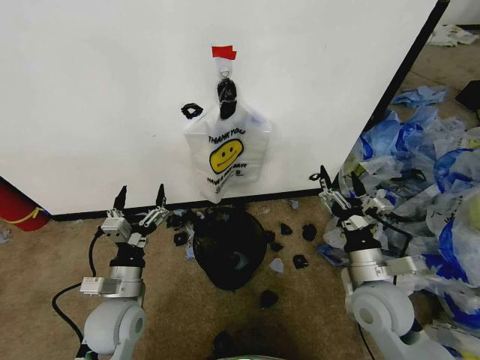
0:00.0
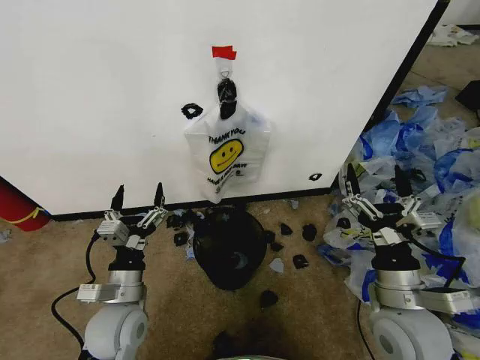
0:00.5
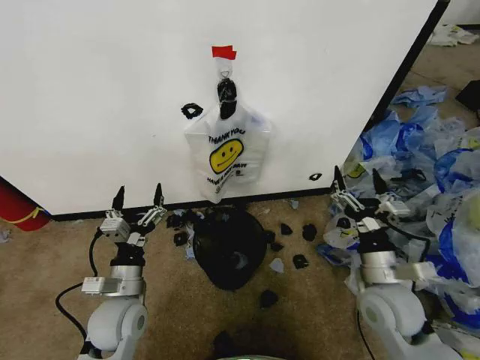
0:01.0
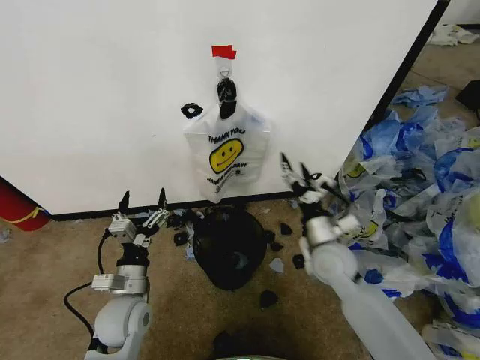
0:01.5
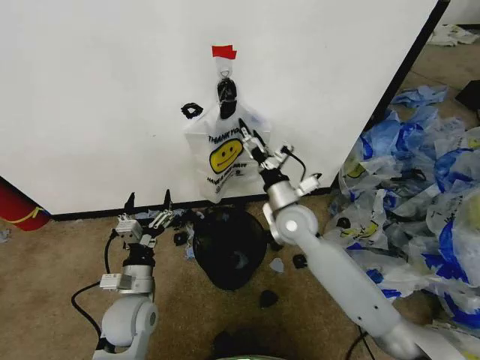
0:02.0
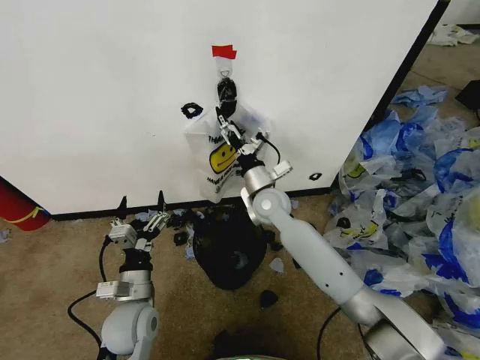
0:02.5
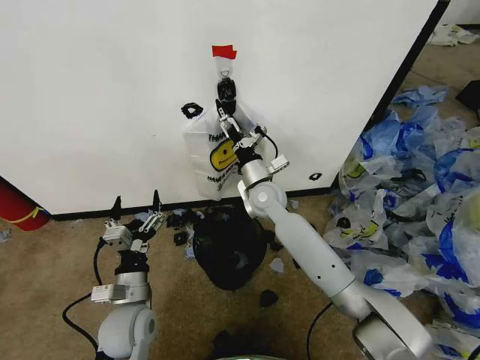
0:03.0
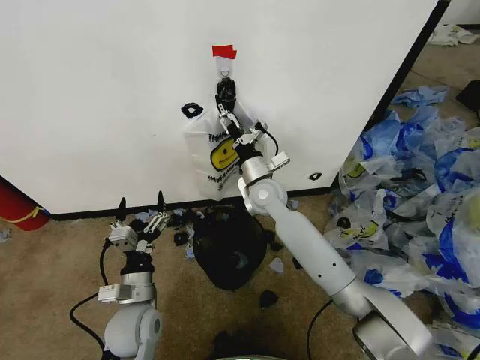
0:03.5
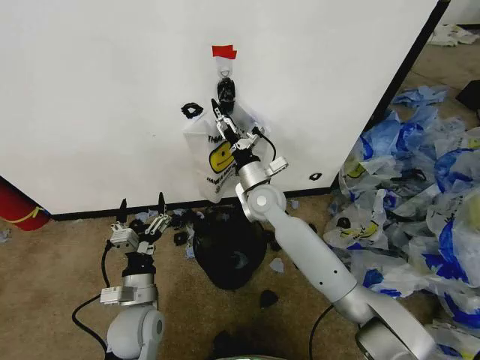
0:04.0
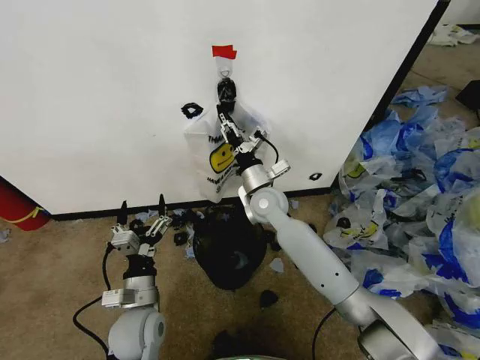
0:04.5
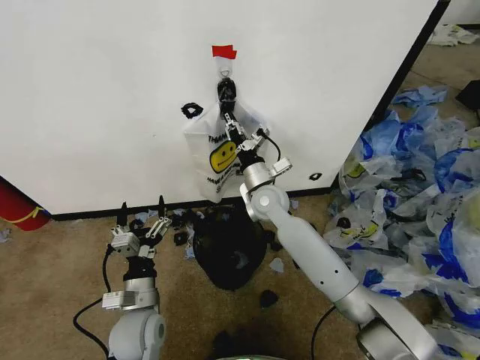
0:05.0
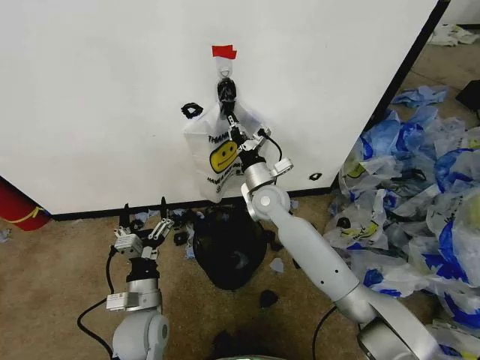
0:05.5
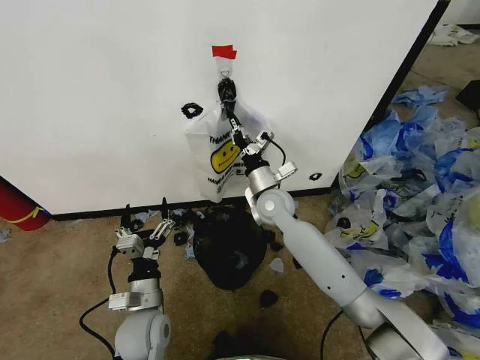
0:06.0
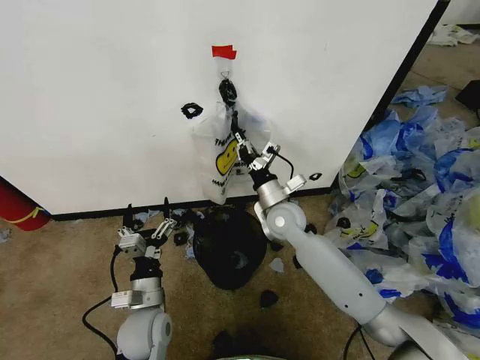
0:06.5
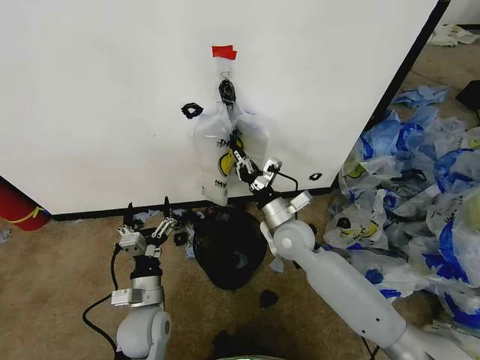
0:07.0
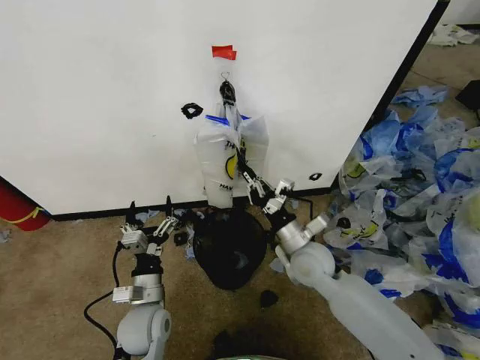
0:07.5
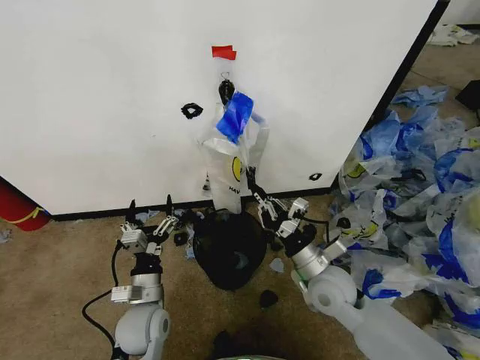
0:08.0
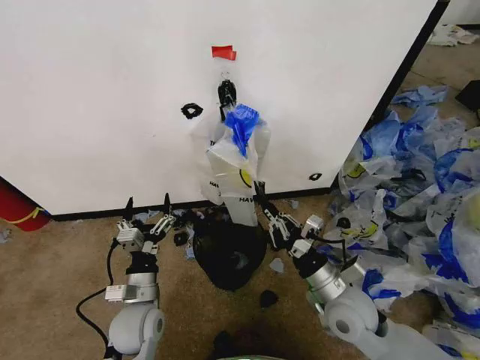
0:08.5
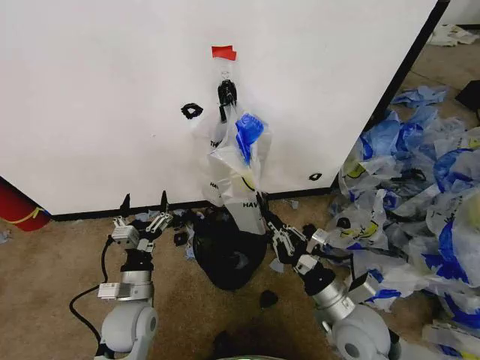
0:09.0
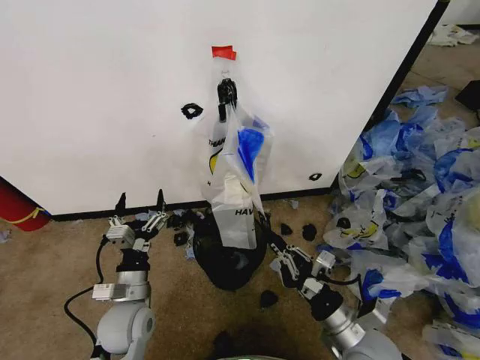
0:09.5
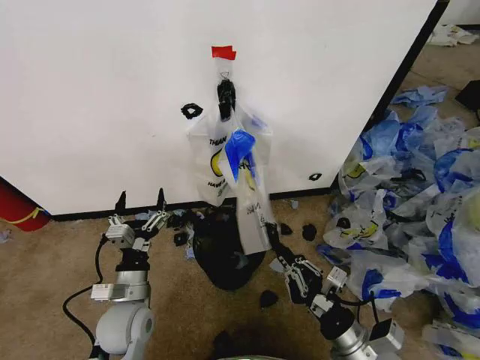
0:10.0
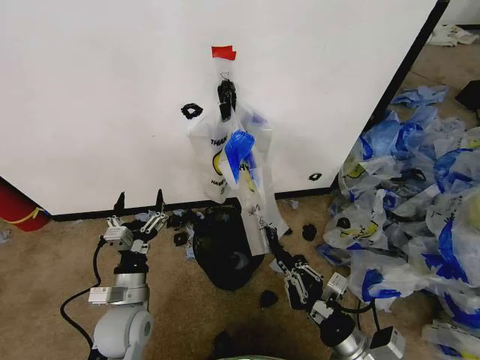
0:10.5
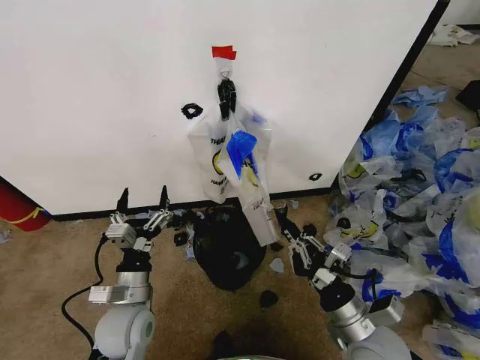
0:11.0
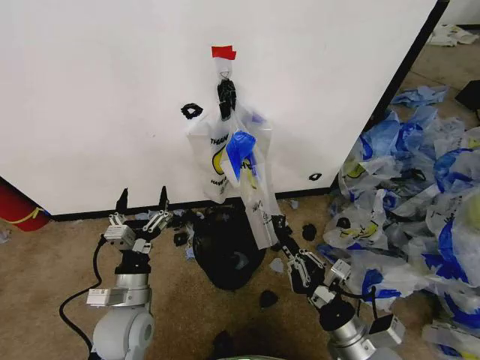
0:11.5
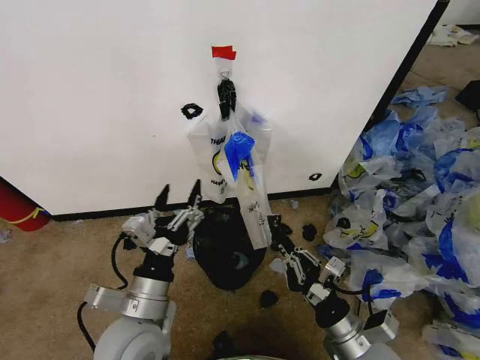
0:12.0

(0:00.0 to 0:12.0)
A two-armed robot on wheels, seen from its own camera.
Task of the whole recording: Pick up the garbage bag from the wall and place it over the trash bin.
0:02.0 - 0:04.0: The right gripper travels to the left and forward by about 10 cm.
0:04.0 - 0:06.0: The right gripper closes.
0:06.0 - 0:08.0: The right gripper shifts about 20 cm backward and to the right.
0:08.0 - 0:10.0: The right gripper moves backward, roughly 15 cm.
0:10.0 - 0:12.0: The left gripper goes about 10 cm upward, backward and to the right.

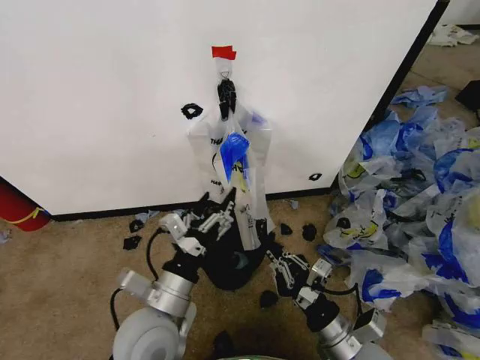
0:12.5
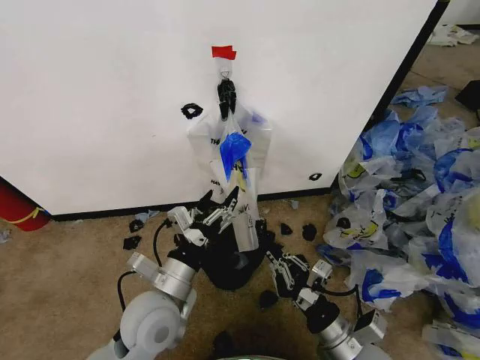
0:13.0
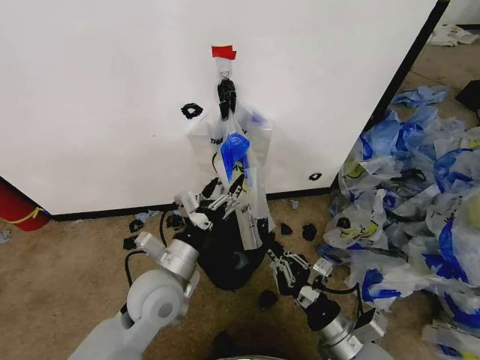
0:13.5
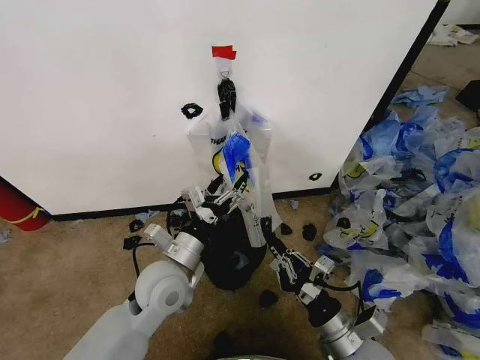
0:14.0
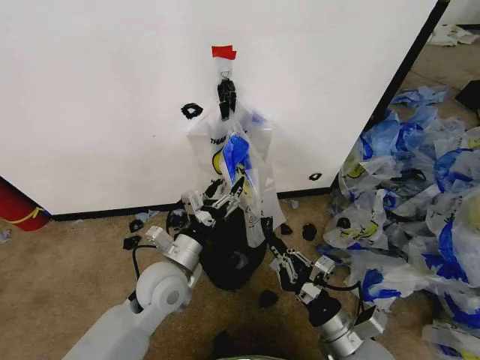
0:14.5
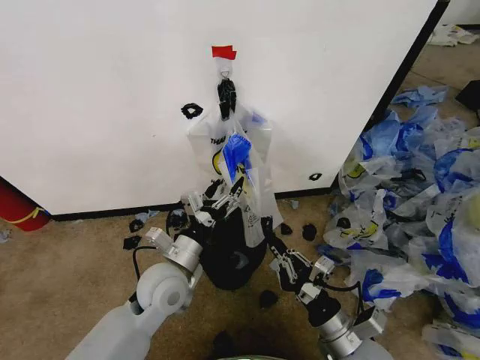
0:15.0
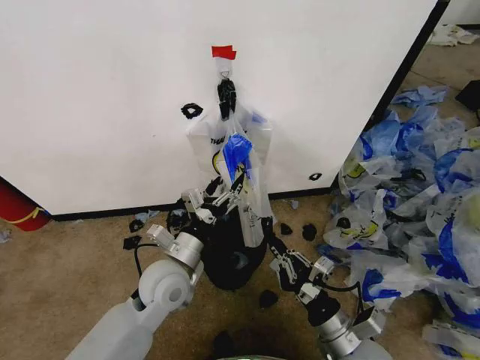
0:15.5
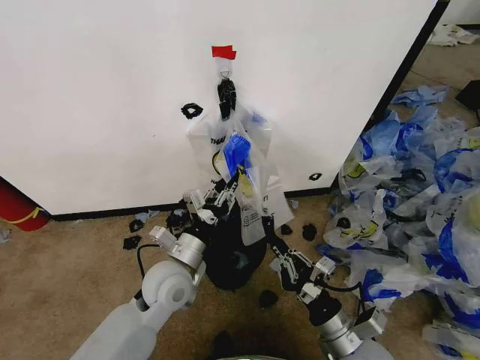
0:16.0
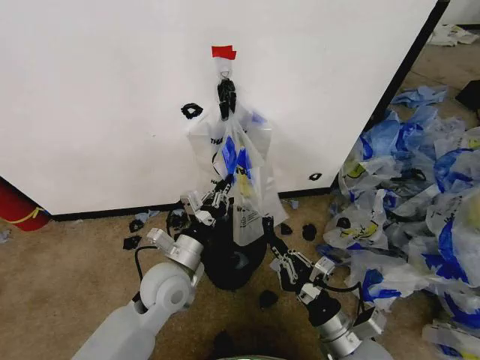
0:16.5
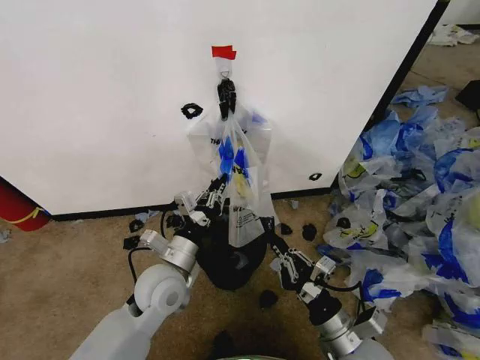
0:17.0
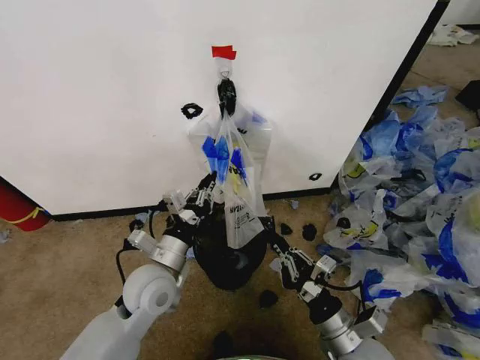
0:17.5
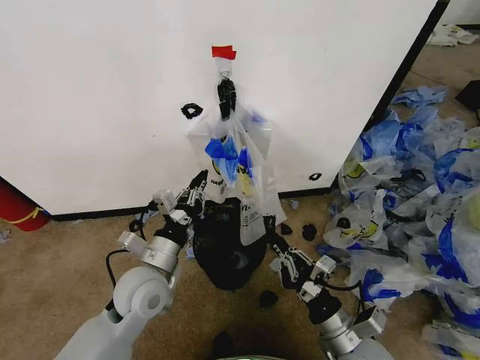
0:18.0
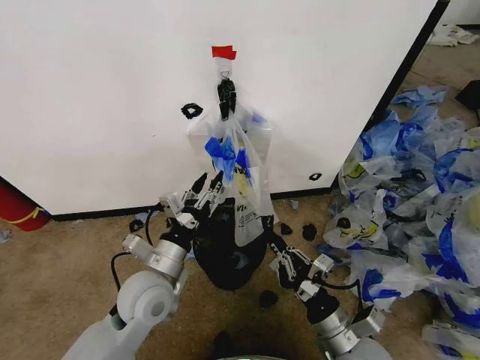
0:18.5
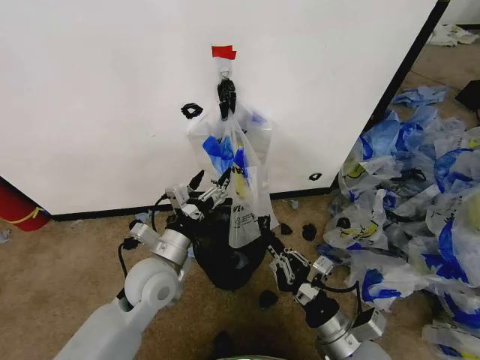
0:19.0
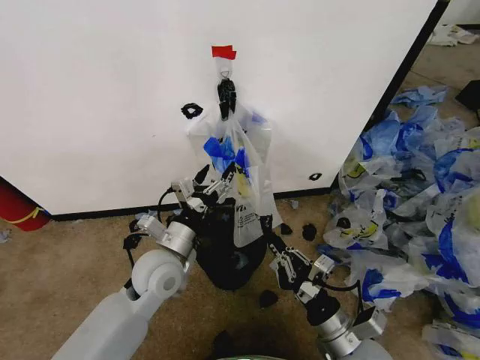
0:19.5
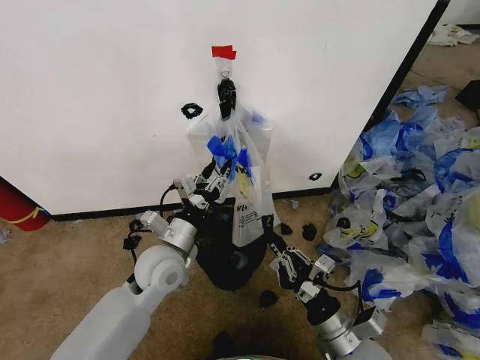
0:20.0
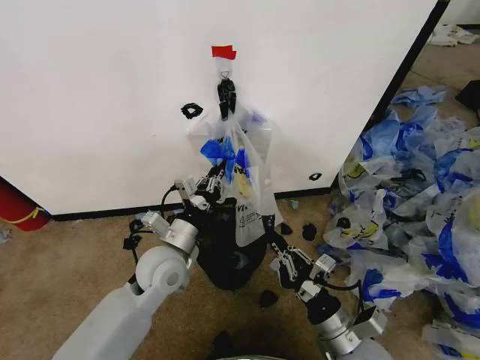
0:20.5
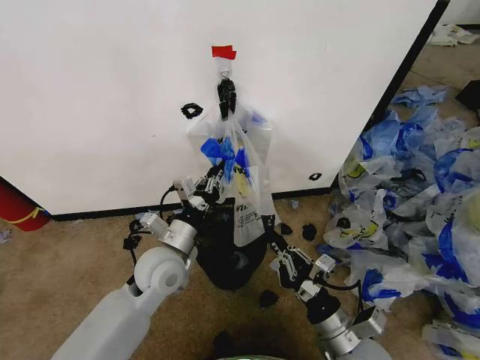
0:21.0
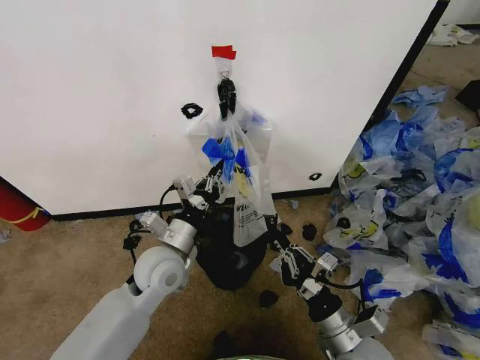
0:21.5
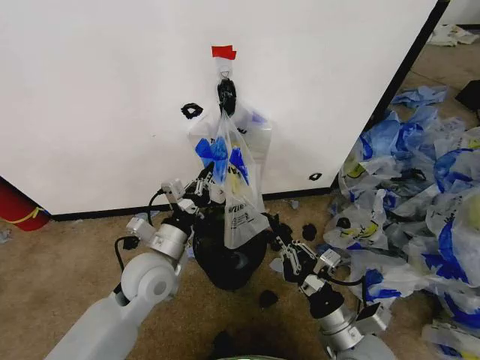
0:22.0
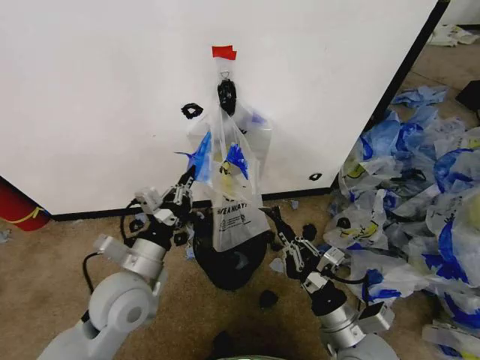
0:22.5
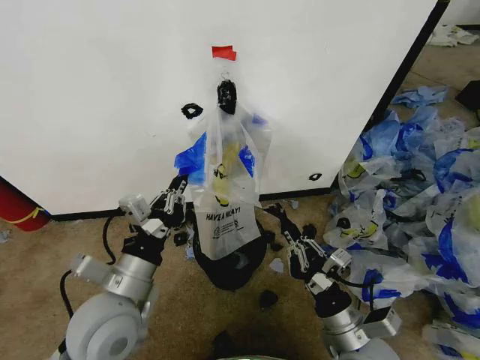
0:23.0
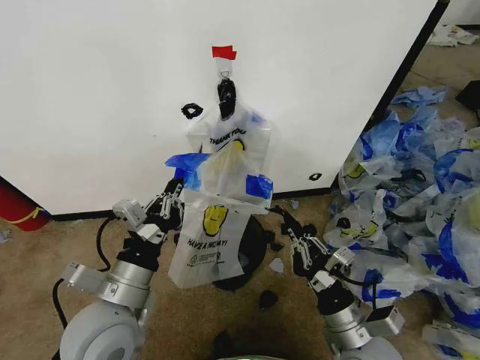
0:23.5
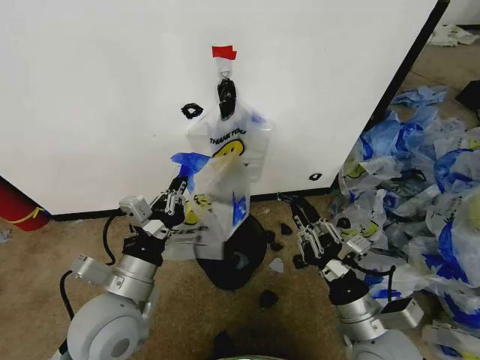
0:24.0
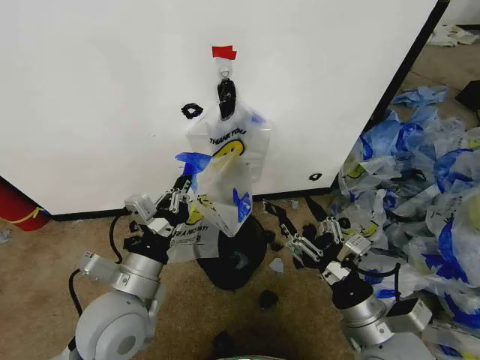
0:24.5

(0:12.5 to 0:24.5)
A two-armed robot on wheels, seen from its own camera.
Task of the whole recording: Pick up the garbage bag from the wall and place it over the trash bin.
0:12.5 - 0:14.5: The left gripper shifts roughly 10 cm forward.
0:14.5 - 0:16.5: The left gripper closes up.
0:16.5 - 0:18.5: The left gripper opens its fingers.
0:18.5 - 0:20.5: The left gripper heads forward, covering about 5 cm, and closes.
0:20.5 - 0:22.5: The left gripper goes roughly 5 cm backward.
0:22.5 - 0:24.5: The right gripper heads upward, covering roughly 5 cm, and opens its fingers.

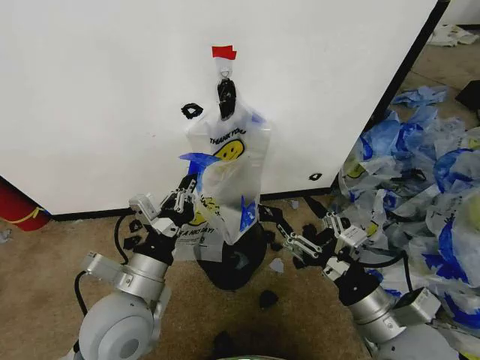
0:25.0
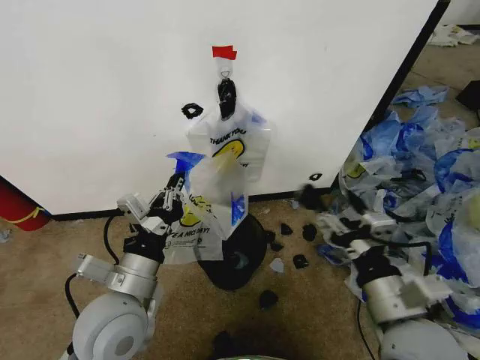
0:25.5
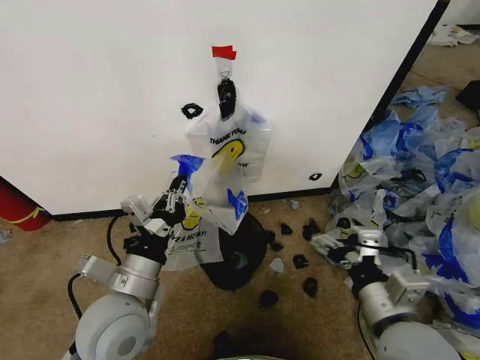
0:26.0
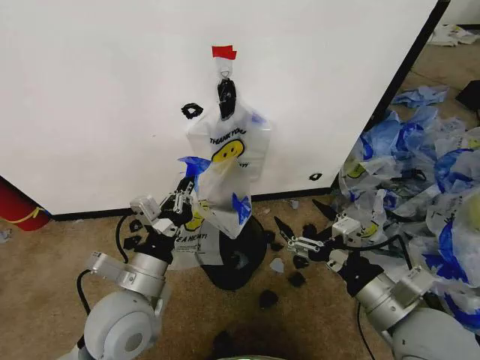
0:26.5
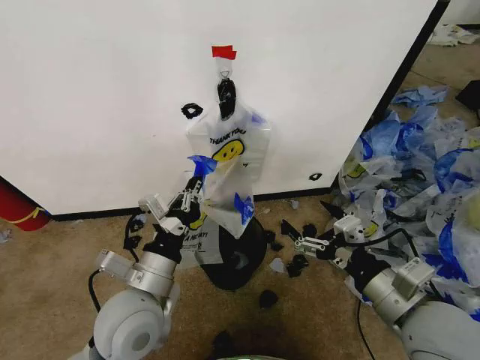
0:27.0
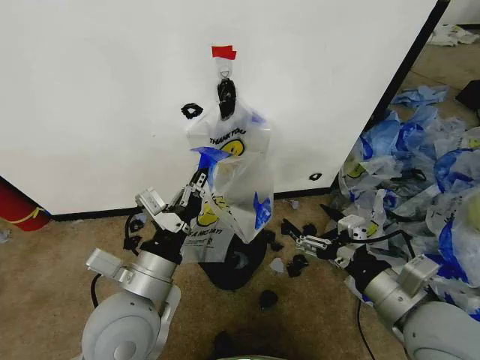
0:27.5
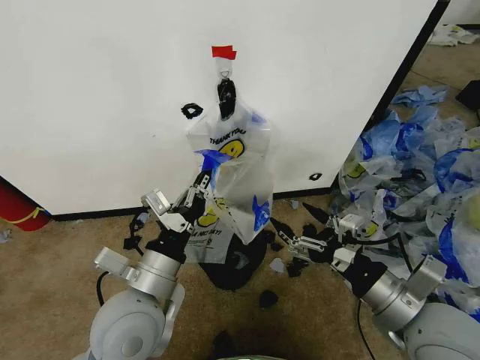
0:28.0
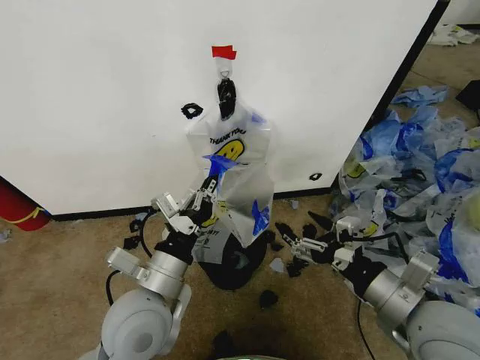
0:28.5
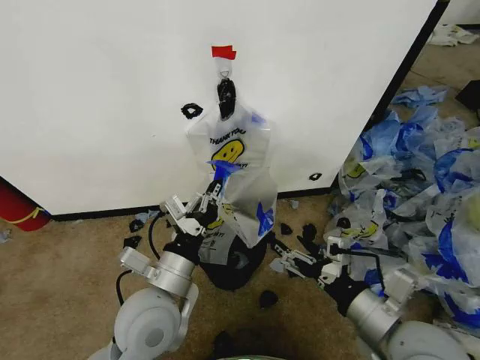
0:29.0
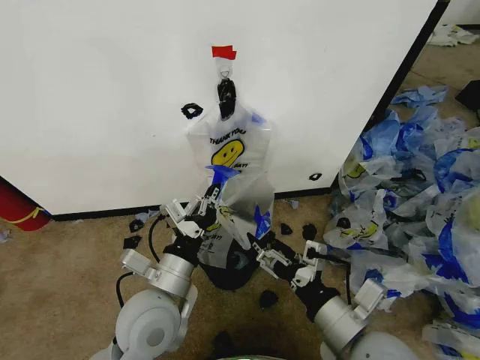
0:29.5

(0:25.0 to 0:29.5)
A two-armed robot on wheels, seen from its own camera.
Task of the whole recording: Pick up the garbage bag from the wall and place it over the trash bin.
0:27.0 - 0:29.5: The right gripper heads to the left, covering about 10 cm.
